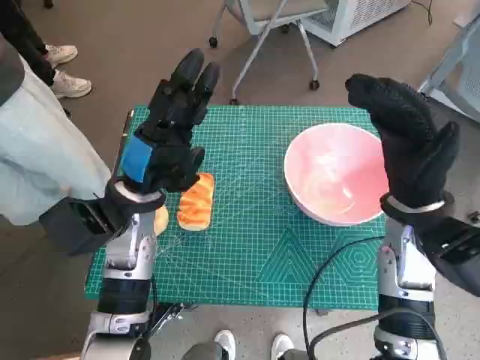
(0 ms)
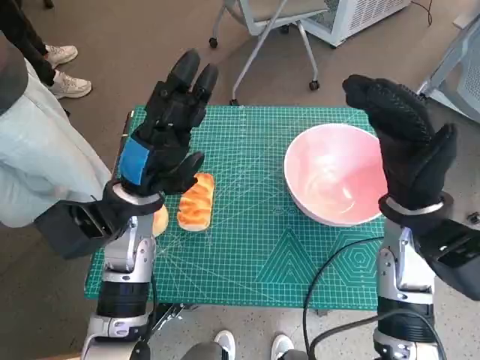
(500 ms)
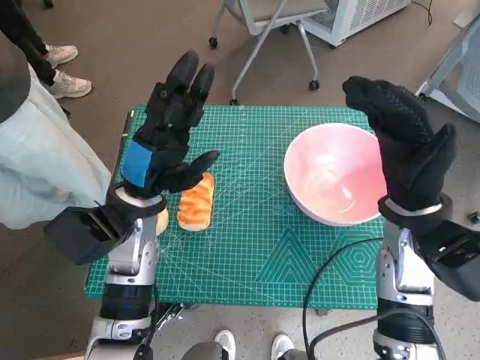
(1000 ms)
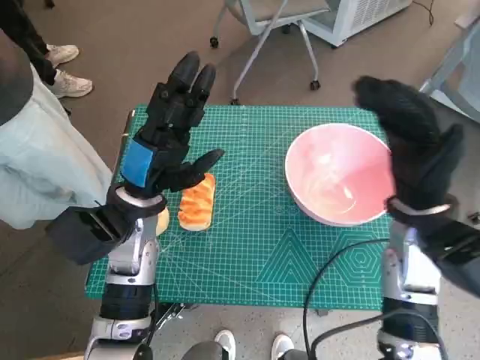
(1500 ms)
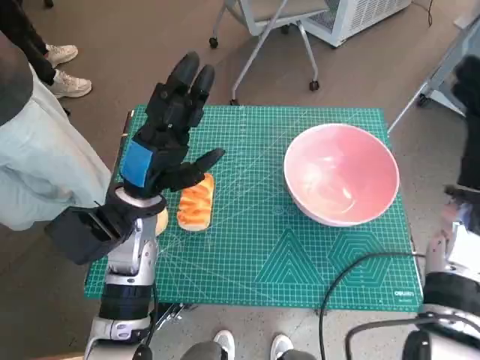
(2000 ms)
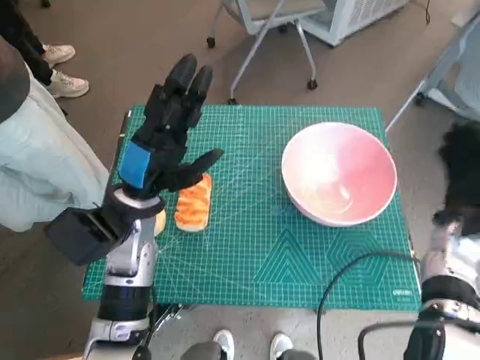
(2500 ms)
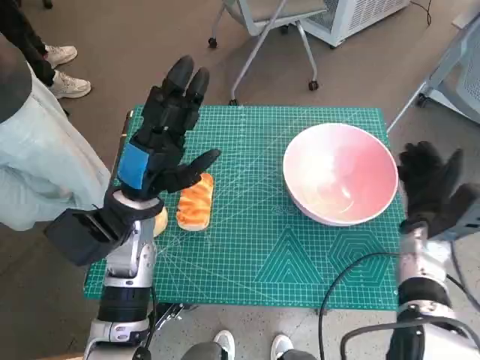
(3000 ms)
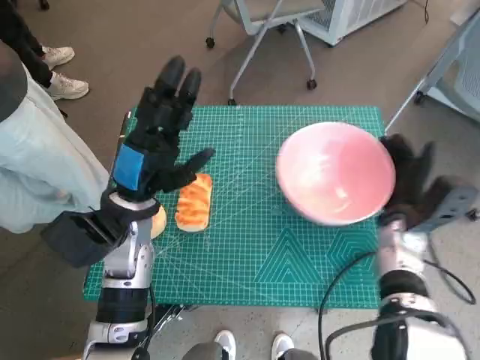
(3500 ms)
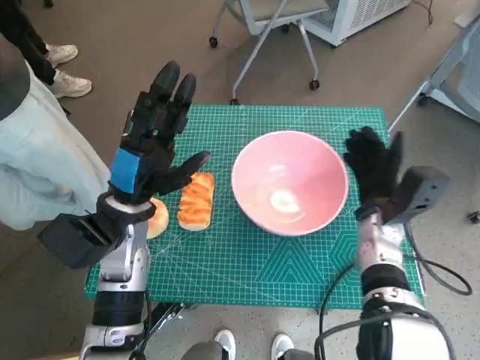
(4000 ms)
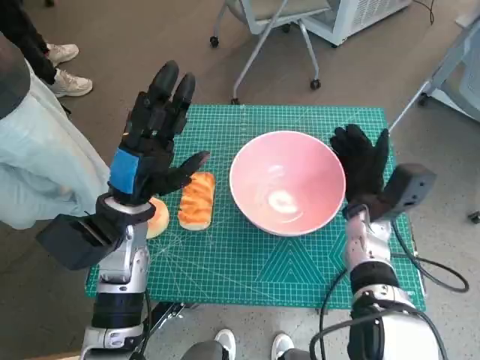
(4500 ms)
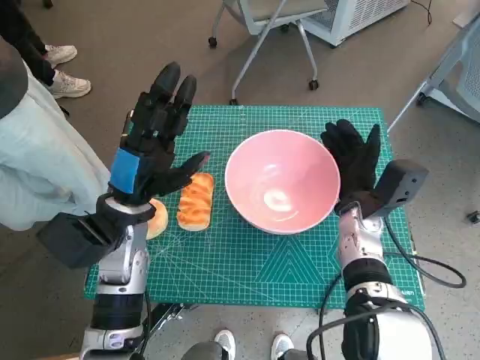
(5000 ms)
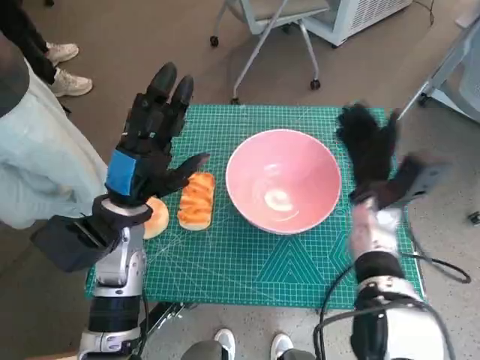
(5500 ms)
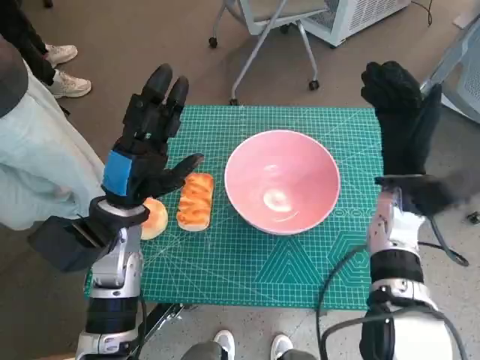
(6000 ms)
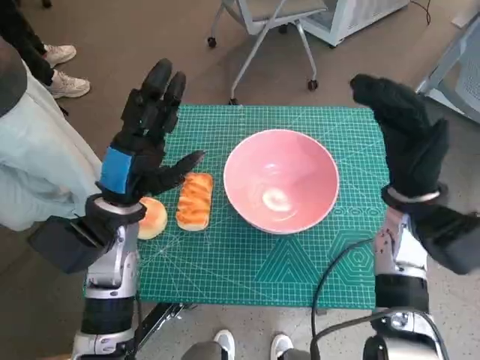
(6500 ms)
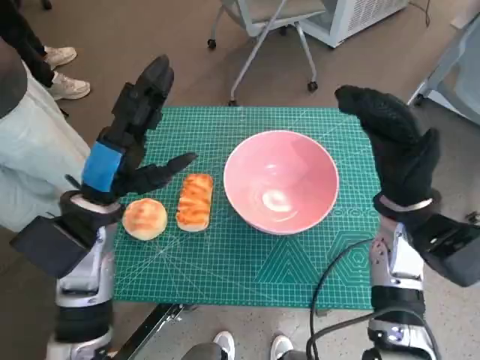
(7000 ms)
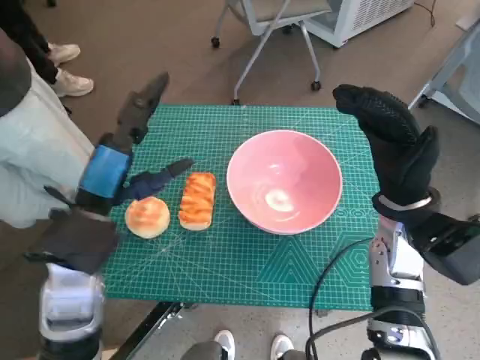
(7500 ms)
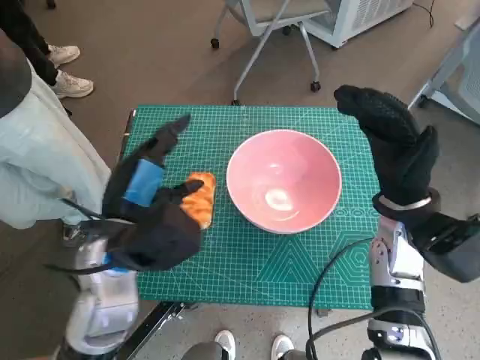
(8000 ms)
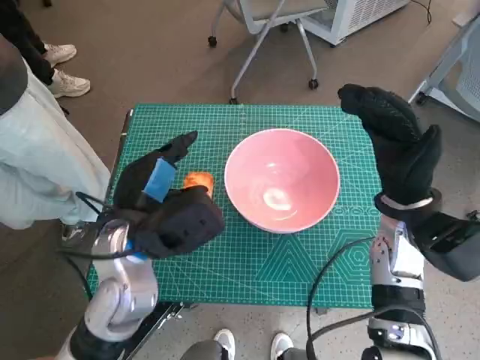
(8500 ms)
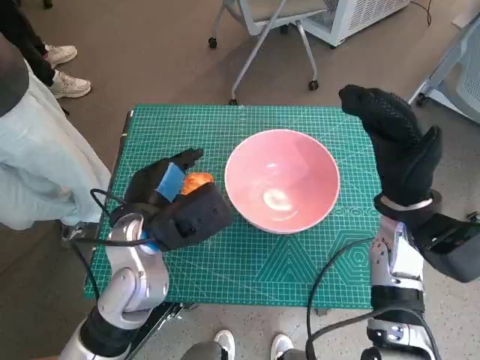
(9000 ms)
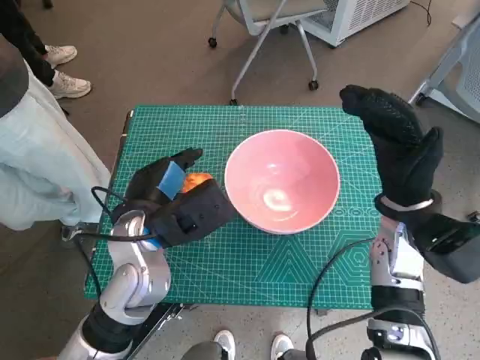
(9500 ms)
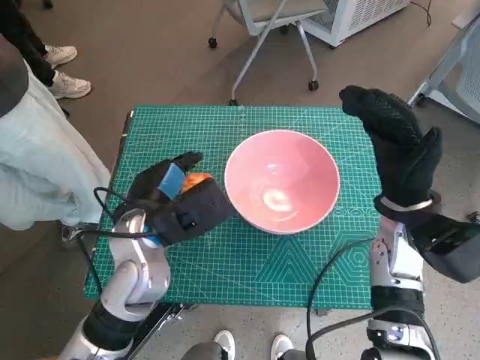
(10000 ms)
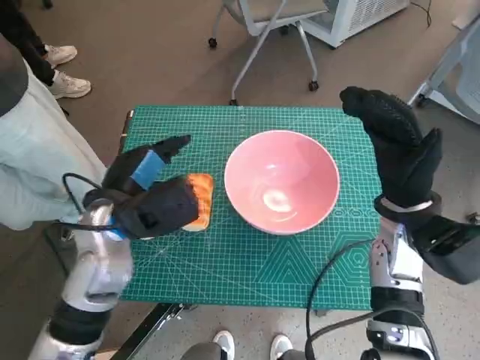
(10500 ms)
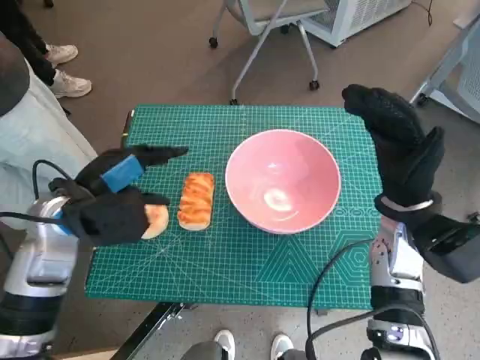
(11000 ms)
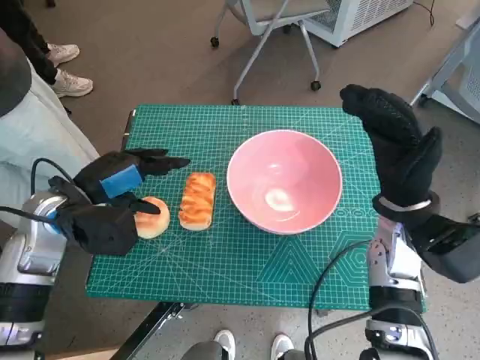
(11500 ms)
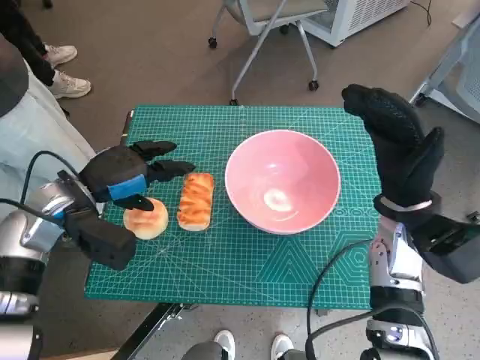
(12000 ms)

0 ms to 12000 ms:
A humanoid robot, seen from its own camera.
Task of the whole recording: Push the bowl into the center of the table and put the bread into the bowl.
Step, 0 ms to 6000 ms: Move the pink bowl to the center of table with right hand.
2000 ms to 4000 ms: The right hand goes approximately 10 cm downward and to the left.
4000 ms to 6000 ms: The right hand is displaced upward by roughly 5 cm.
6000 ms to 8000 ms: The left hand changes place by roughly 5 cm.
10000 ms to 12000 ms: The left hand shifts roughly 10 cm to the left.

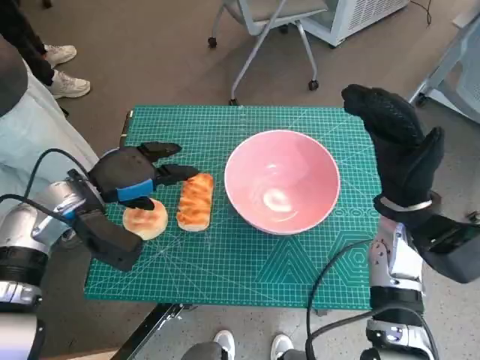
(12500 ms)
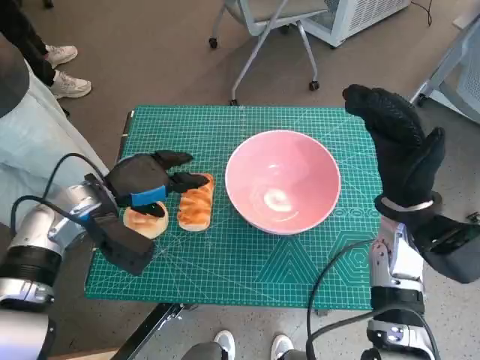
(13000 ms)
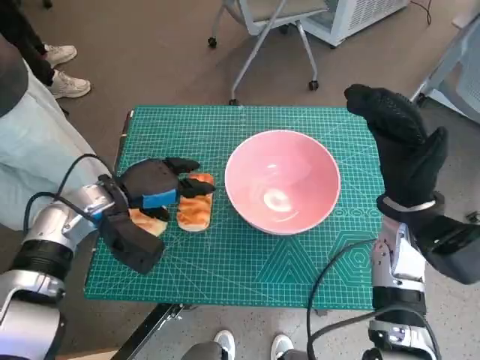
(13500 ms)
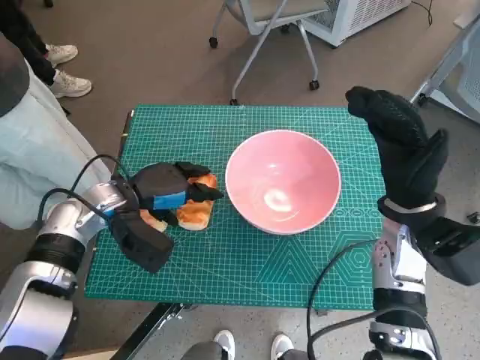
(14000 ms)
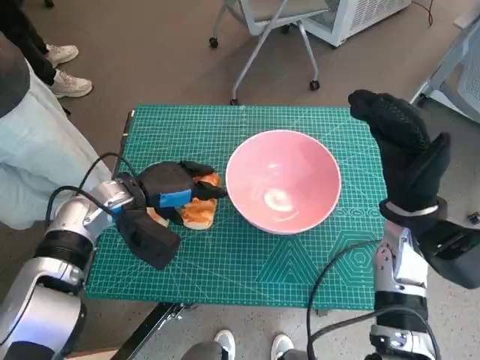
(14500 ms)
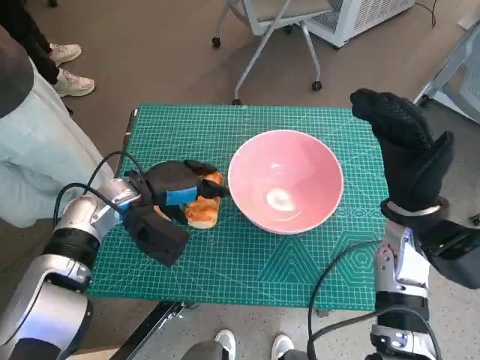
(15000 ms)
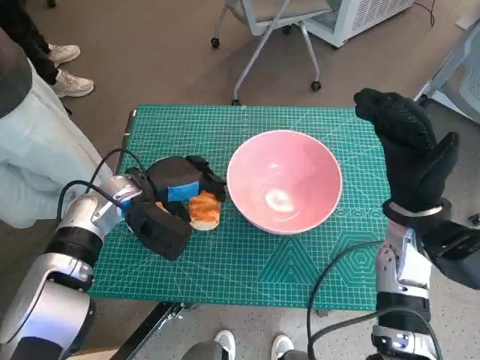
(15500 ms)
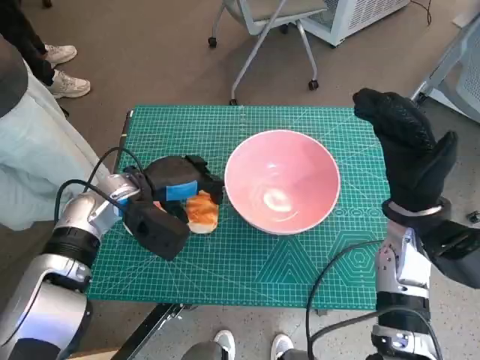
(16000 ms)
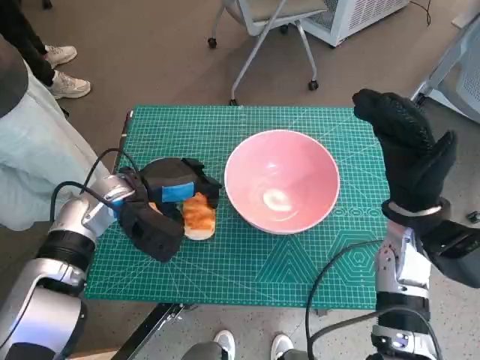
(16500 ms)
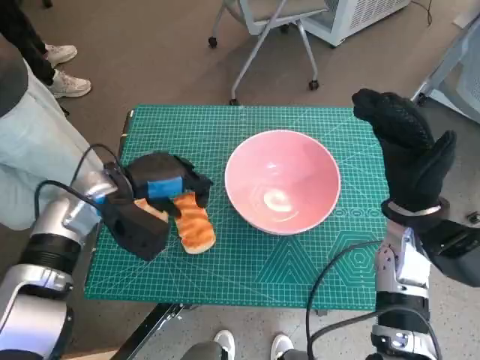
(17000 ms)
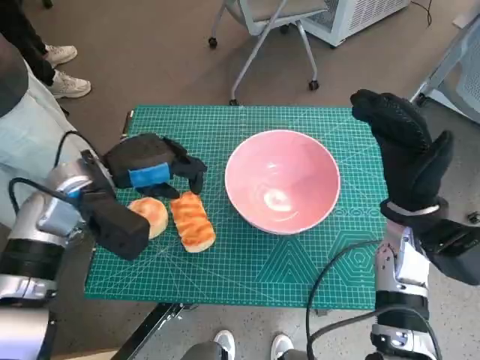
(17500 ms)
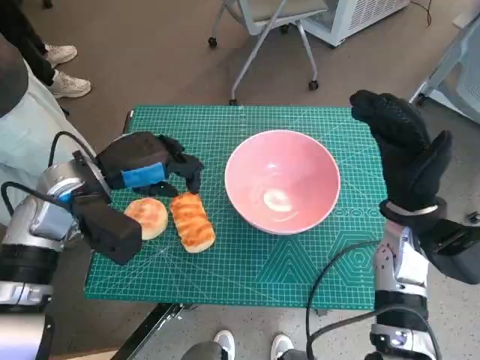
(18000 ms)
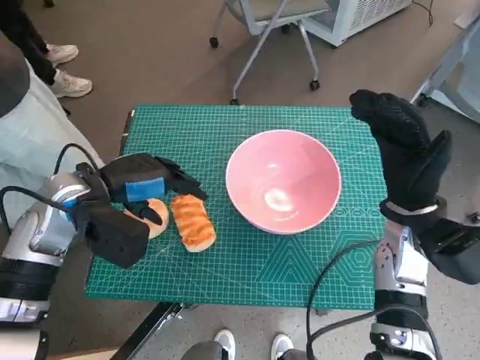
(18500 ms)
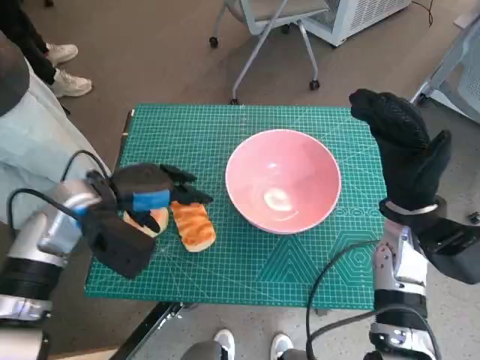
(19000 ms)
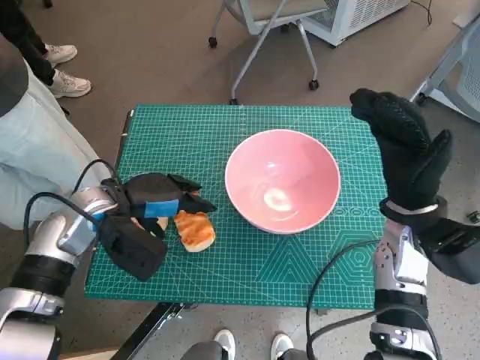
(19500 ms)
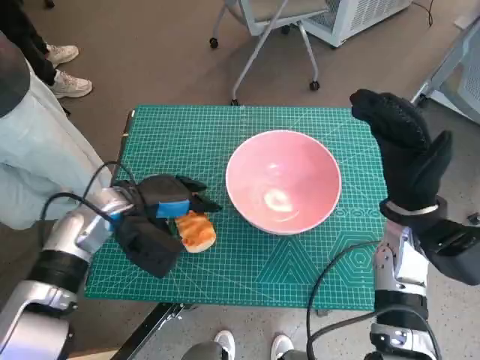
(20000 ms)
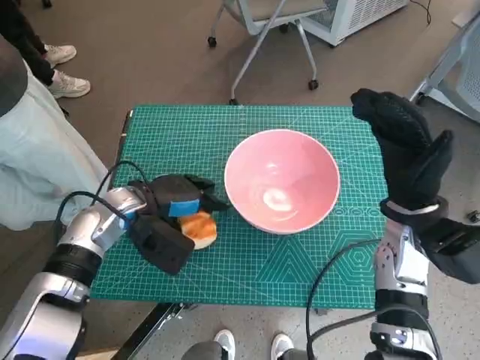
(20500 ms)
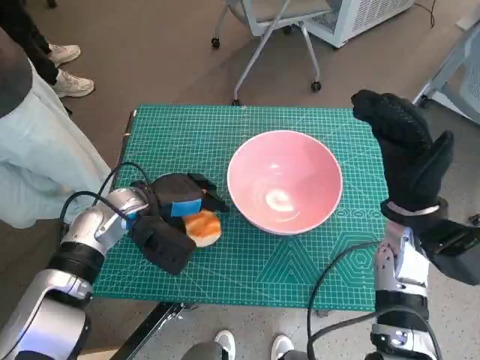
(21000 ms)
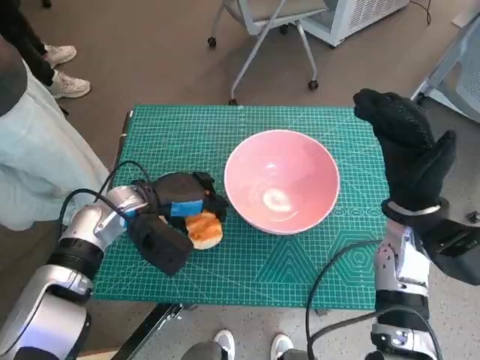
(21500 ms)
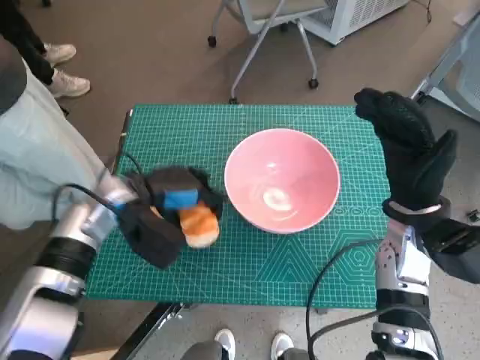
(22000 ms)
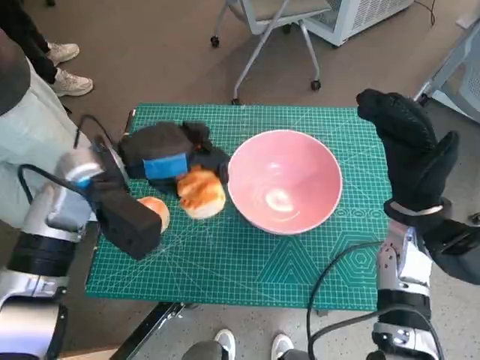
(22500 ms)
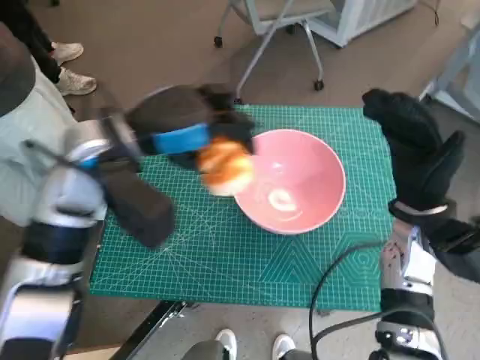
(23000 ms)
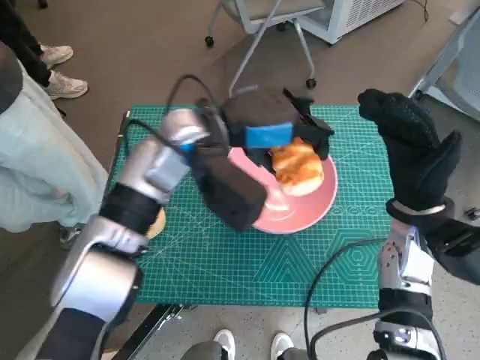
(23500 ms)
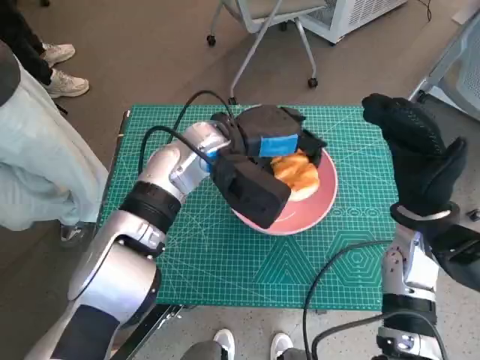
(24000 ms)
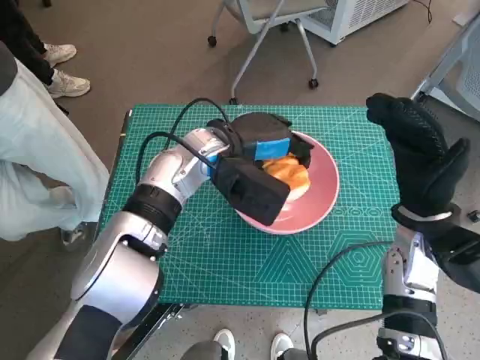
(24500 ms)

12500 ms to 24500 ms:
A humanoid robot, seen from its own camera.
Task of the whole recording: Push the bowl into the center of the table and put the bread into the bowl.
Step, 12500 ms to 21500 ms: Grasp the long bread with left hand.
12500 ms to 14500 ms: The left hand changes place by some 5 cm.
14500 ms to 16500 ms: The hands move only a little.
16500 ms to 18500 ms: The left hand shifts approximately 5 cm upward.
18500 ms to 20500 ms: The left hand travels downward by roughly 5 cm.
20500 ms to 22500 ms: The left hand goes roughly 10 cm upward.
22500 ms to 24500 ms: The left hand moves to the right, about 15 cm.

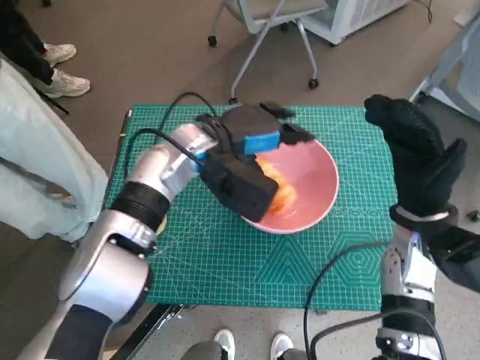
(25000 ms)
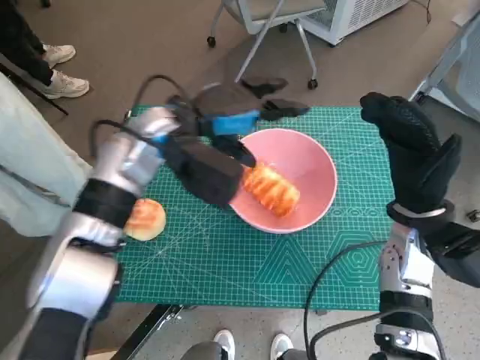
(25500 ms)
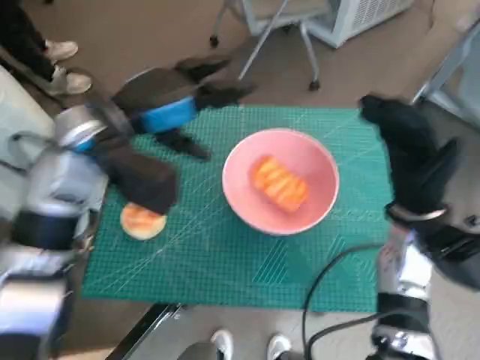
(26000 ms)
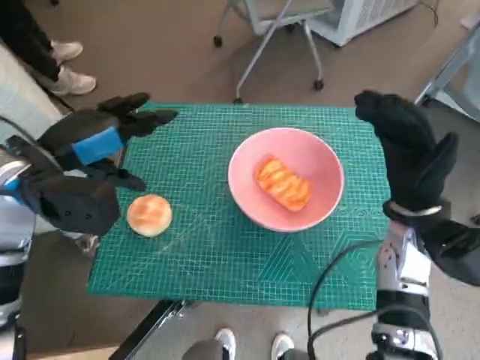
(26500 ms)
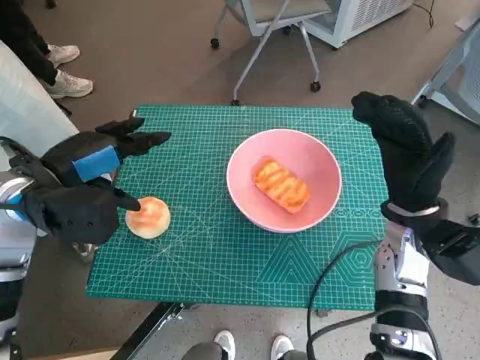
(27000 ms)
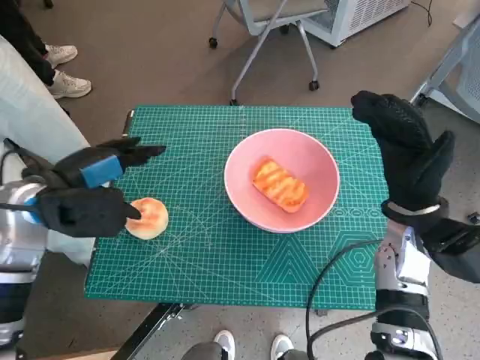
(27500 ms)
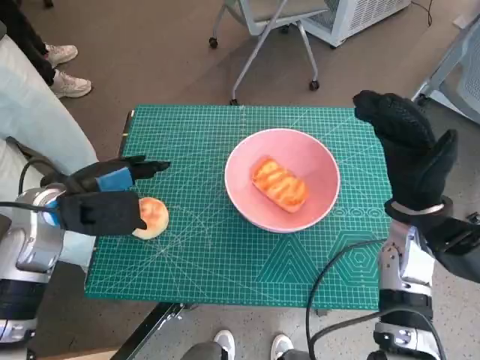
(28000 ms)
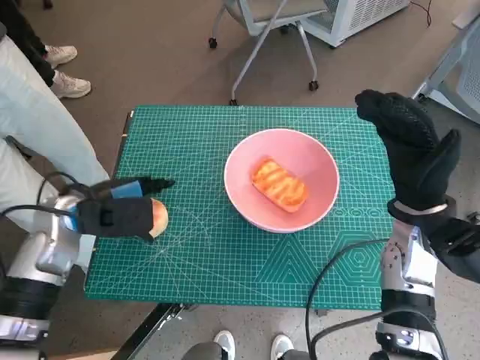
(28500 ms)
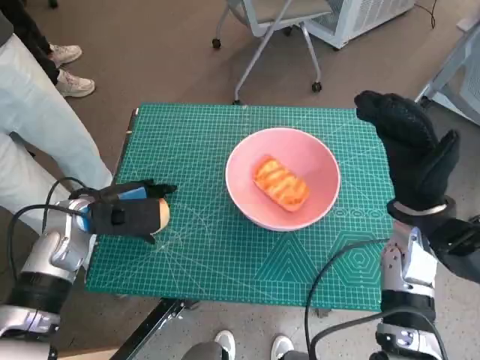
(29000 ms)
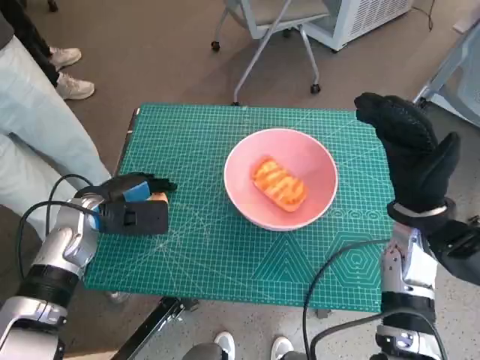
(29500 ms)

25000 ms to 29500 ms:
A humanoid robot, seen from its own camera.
Task of the whole recording: Push the bowl into the center of the table and put the bread into the bowl.
25000 ms to 27000 ms: The left hand shifts roughly 20 cm to the left and backward.
27000 ms to 29500 ms: The left hand travels downward by about 10 cm.
